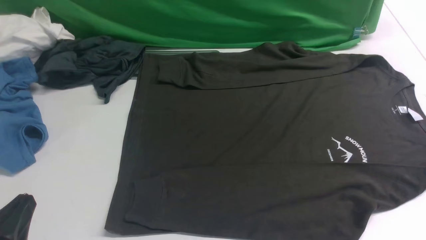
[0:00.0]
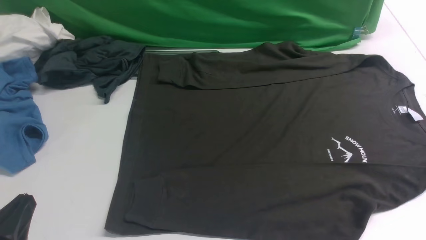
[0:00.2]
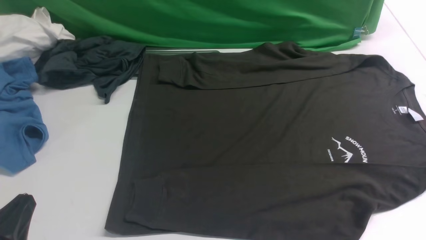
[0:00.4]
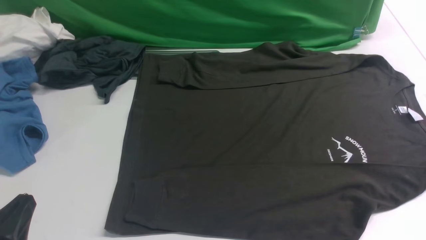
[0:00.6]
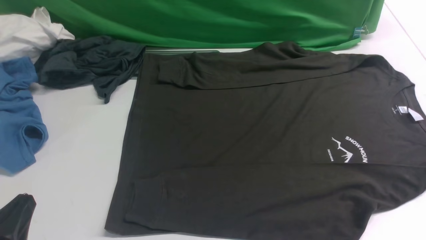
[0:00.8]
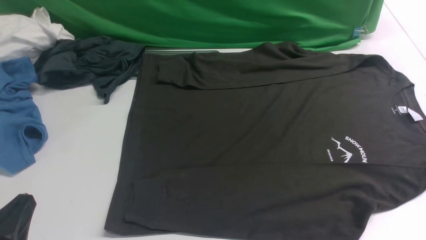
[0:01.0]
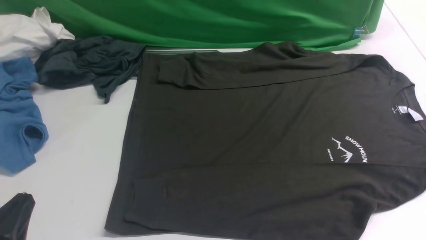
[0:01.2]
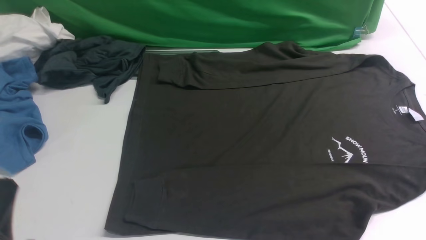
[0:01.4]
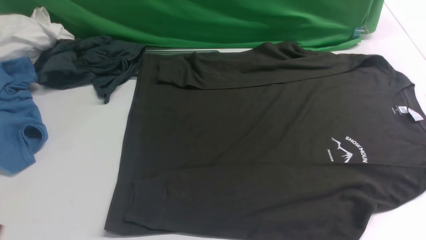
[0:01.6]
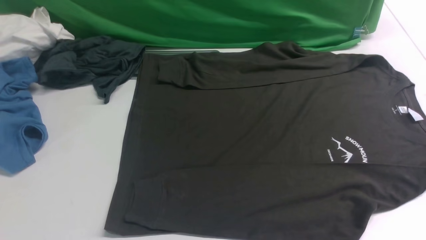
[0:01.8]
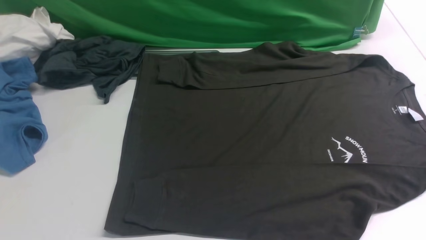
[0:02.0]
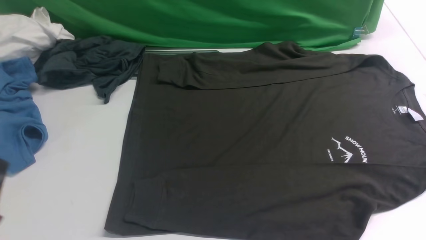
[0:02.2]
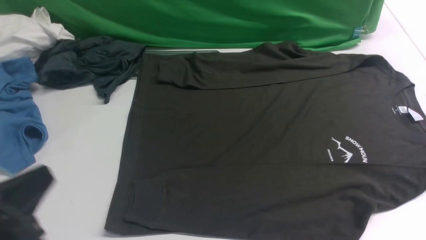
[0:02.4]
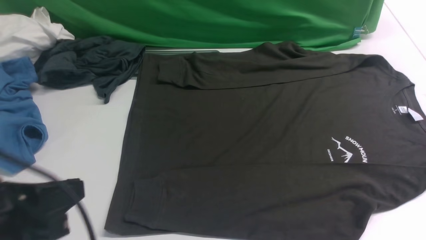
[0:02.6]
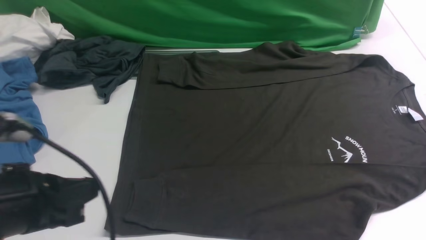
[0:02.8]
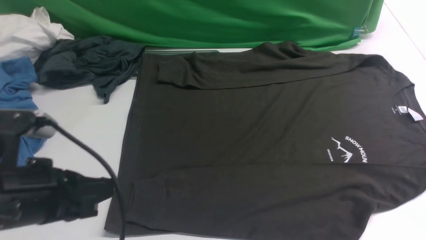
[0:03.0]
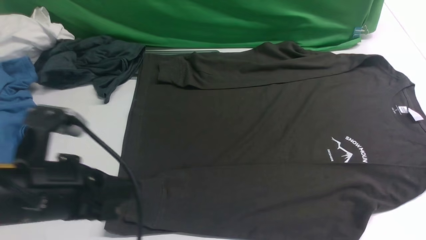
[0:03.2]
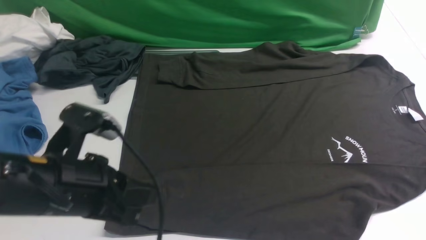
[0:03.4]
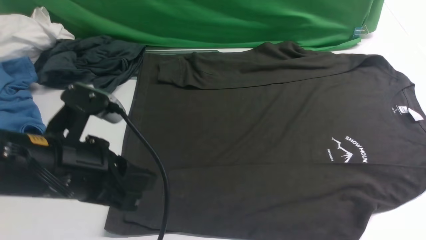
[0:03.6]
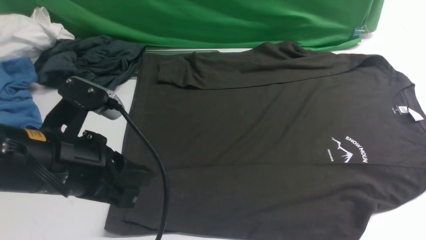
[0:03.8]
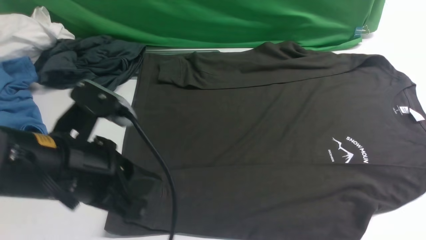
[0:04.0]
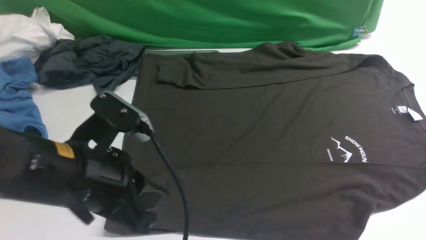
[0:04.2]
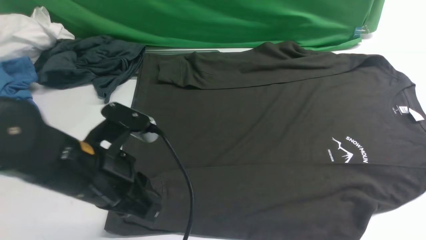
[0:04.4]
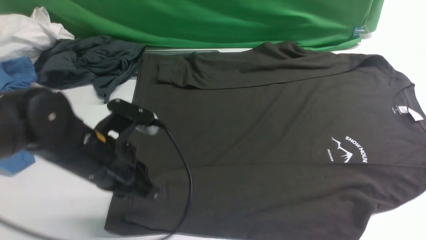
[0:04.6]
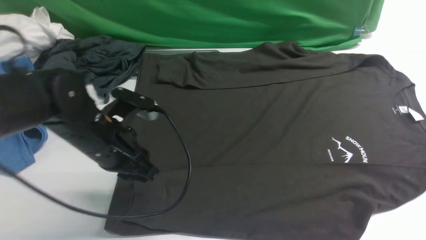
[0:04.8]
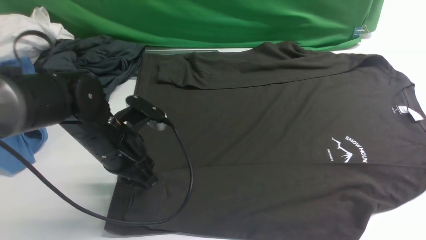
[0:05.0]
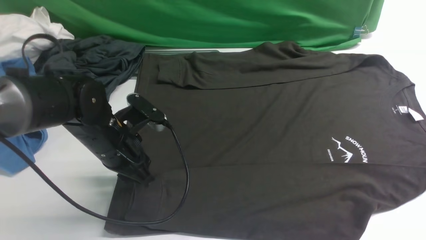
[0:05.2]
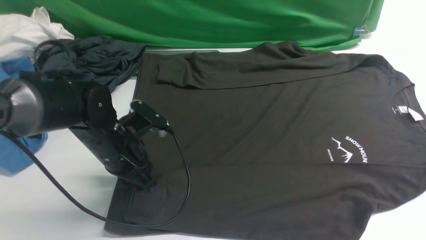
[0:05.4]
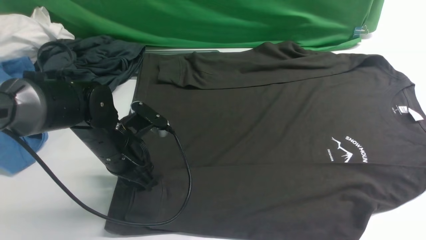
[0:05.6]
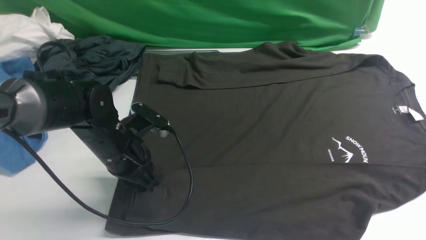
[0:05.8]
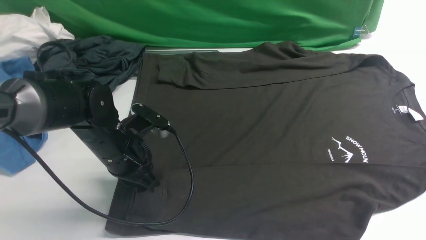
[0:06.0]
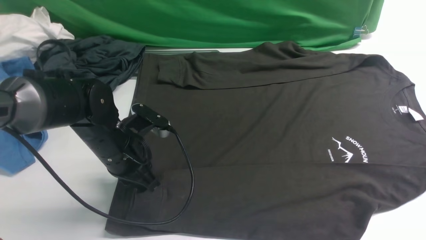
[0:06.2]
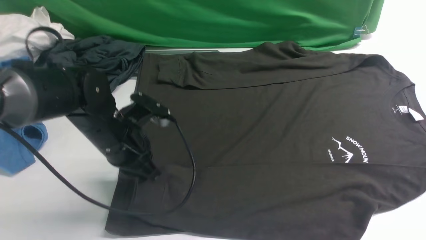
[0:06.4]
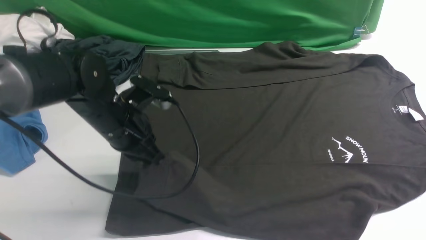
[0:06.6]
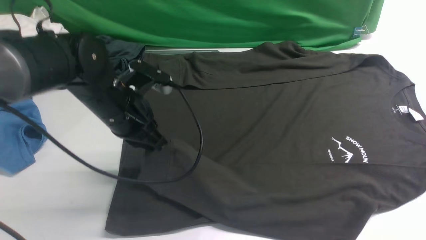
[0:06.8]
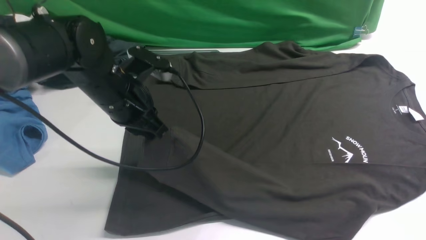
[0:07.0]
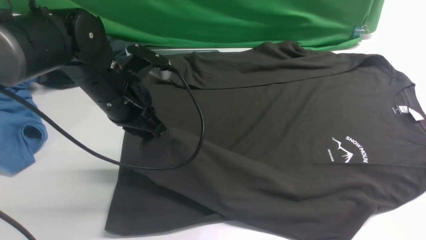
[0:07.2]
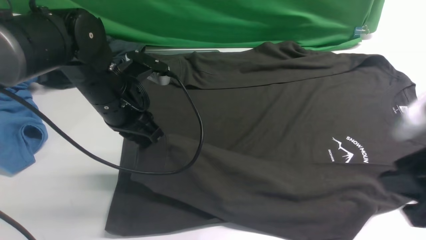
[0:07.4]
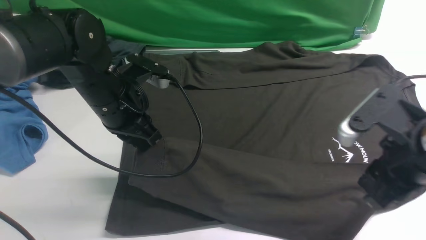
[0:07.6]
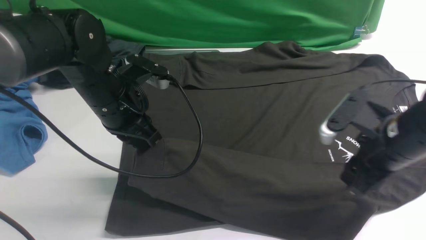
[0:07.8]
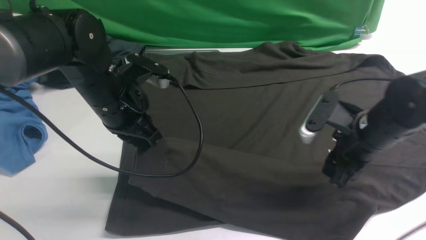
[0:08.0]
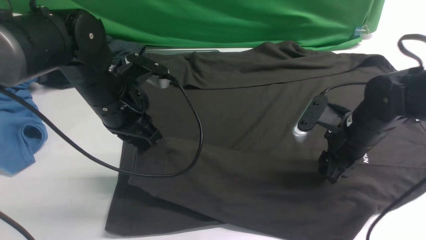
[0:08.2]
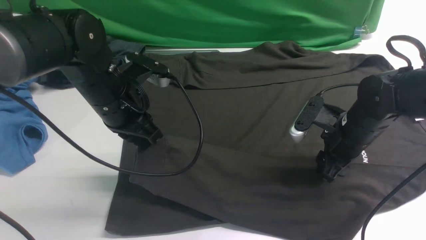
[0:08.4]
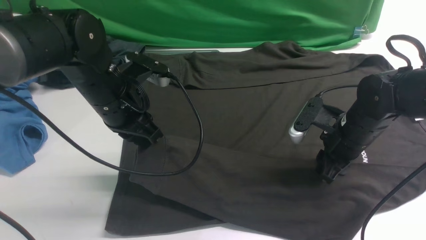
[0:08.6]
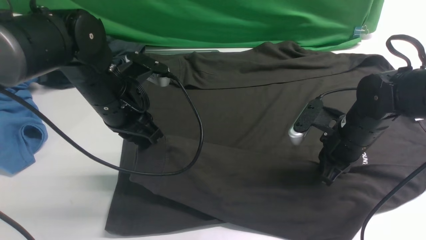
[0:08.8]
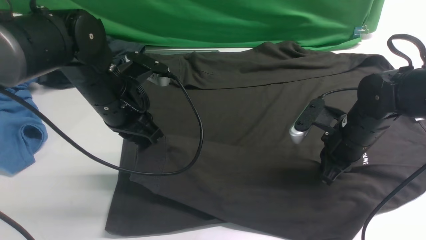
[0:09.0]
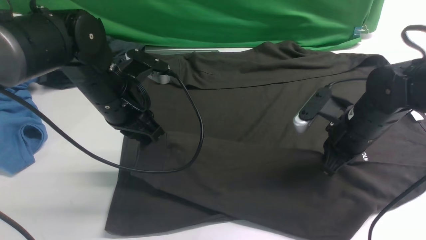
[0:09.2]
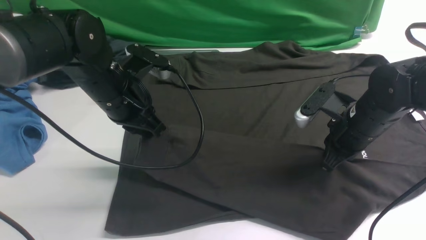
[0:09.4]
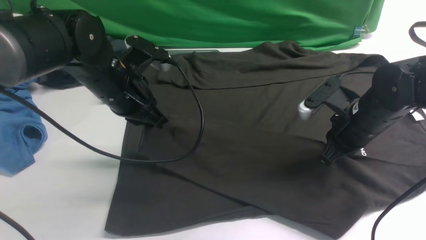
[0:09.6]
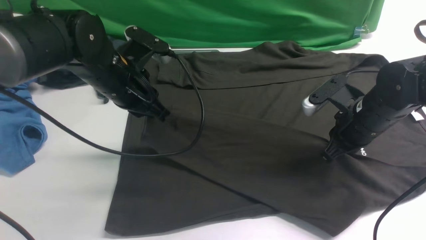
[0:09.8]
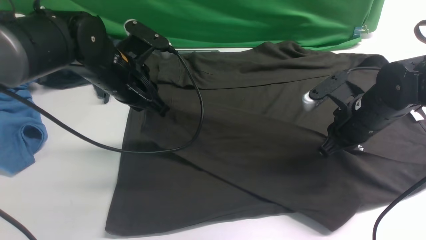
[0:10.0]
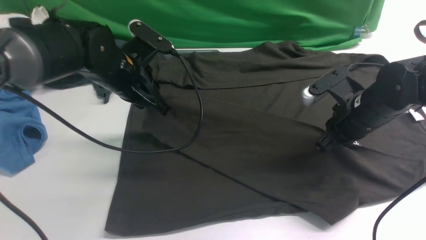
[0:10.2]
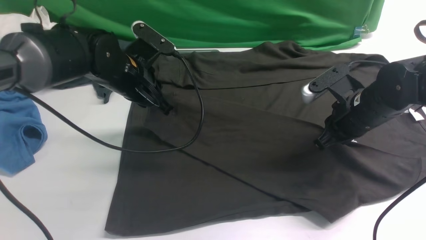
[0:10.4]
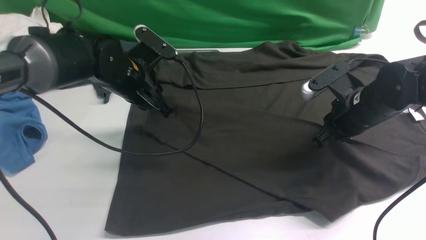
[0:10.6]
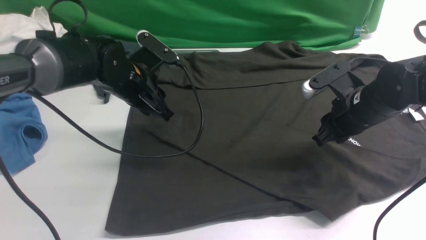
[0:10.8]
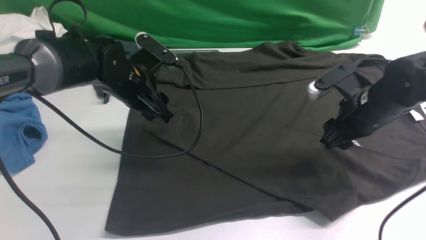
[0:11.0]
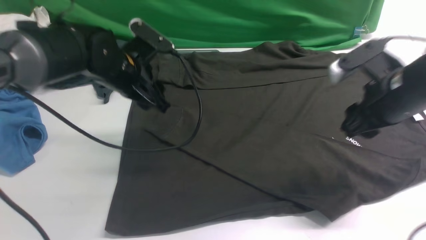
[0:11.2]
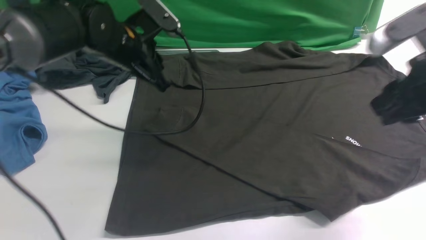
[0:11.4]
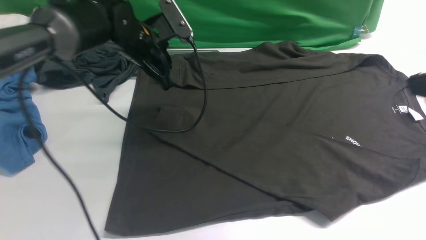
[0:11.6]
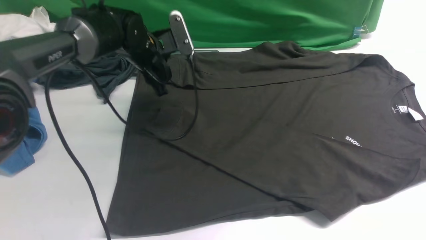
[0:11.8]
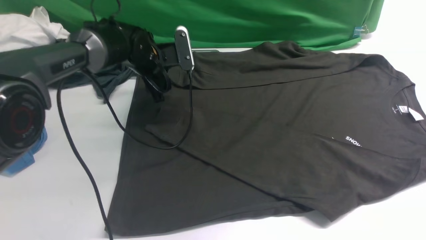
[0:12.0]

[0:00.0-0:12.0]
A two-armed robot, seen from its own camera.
Step, 0:00.0 to 0:06.4: use the left arm to clamp the cuff closest to it.
Step, 0:06.6 to 0:11.2: use the left arm to drag and place the cuff at the centered position on the left edge of the fabric.
0:01.6 to 0:03.0: The left gripper is displaced forward and upward by about 10 cm.
0:03.0 to 0:04.4: The right gripper moves upward, approximately 15 cm; the left gripper goes roughly 10 cm forward and to the right.
0:04.4 to 0:06.0: The left gripper heads forward and downward, covering roughly 15 cm, and opens, then closes once more.
0:06.0 to 0:07.6: The left gripper moves upward, about 10 cm; the right gripper shifts approximately 20 cm forward and downward.
0:07.6 to 0:09.0: The right gripper heads forward and downward, covering roughly 15 cm, and closes its fingers.
0:09.0 to 0:10.4: The left gripper shifts about 5 cm forward.
0:10.4 to 0:12.0: The left gripper is displaced forward by roughly 10 cm, and opens its fingers. The right gripper heads upward and backward, covering some 25 cm, and opens up.

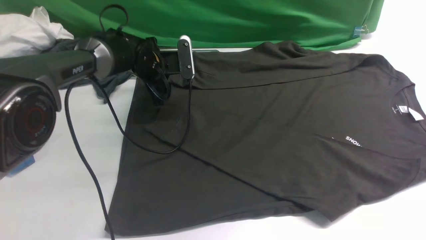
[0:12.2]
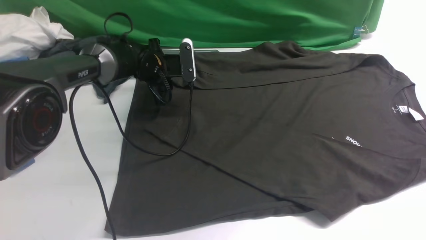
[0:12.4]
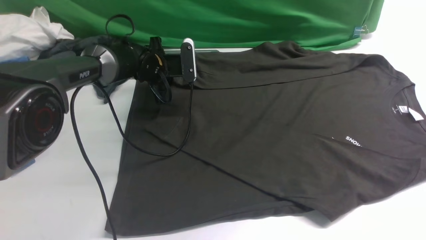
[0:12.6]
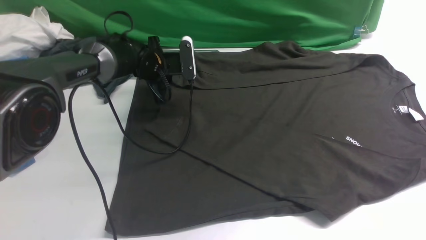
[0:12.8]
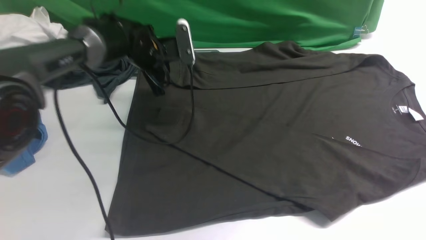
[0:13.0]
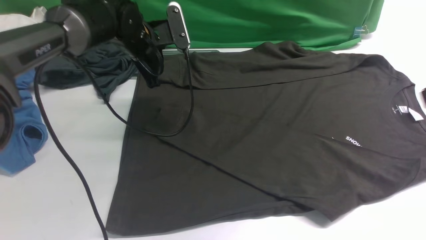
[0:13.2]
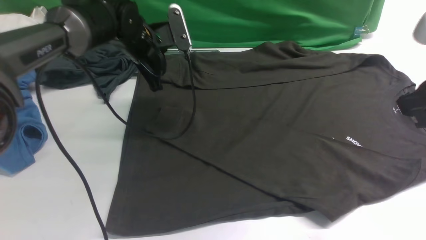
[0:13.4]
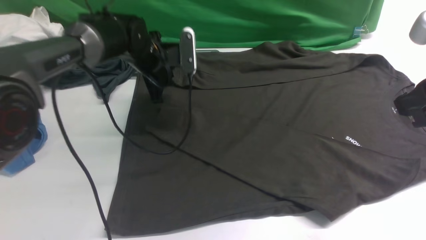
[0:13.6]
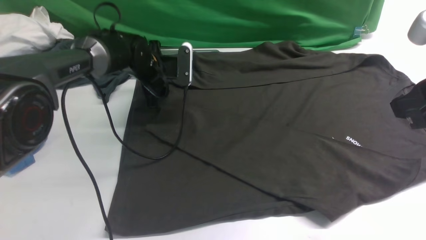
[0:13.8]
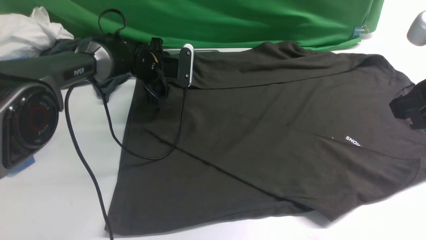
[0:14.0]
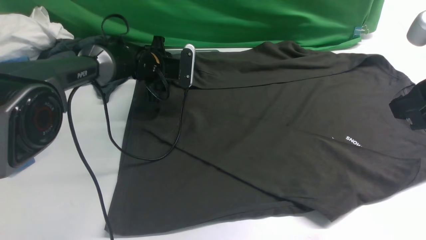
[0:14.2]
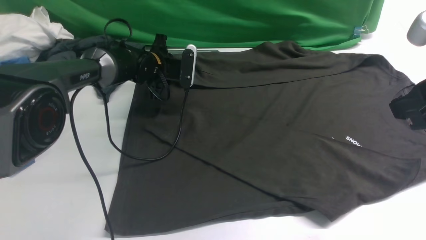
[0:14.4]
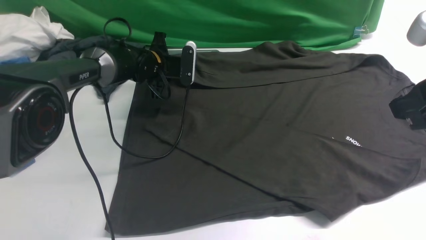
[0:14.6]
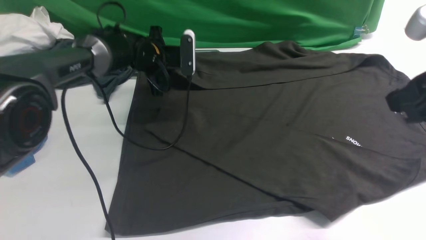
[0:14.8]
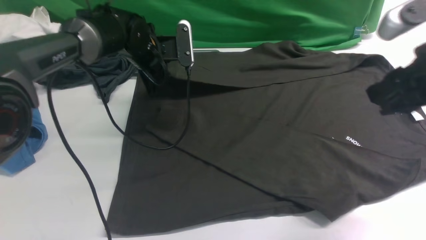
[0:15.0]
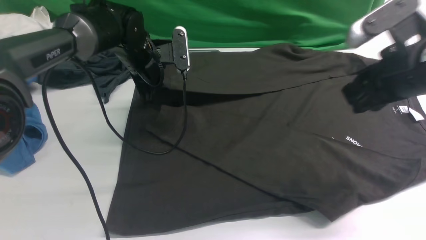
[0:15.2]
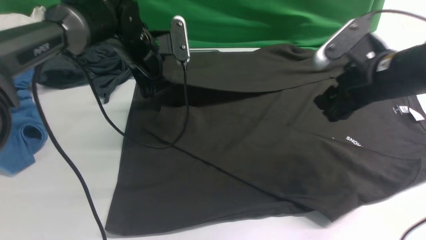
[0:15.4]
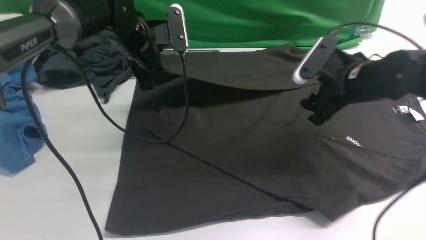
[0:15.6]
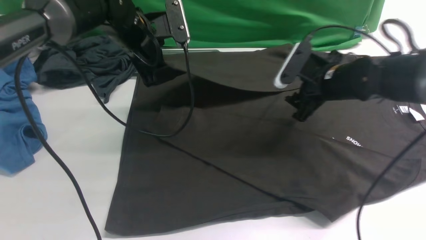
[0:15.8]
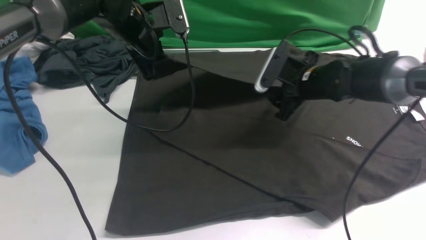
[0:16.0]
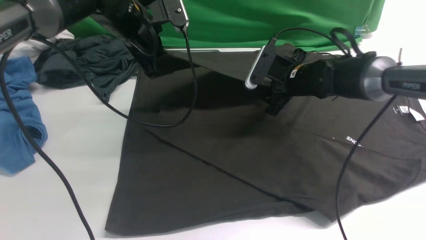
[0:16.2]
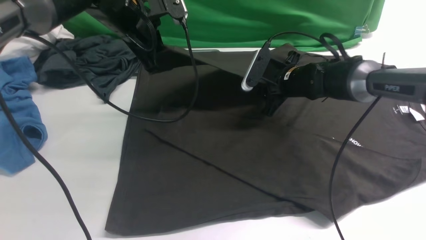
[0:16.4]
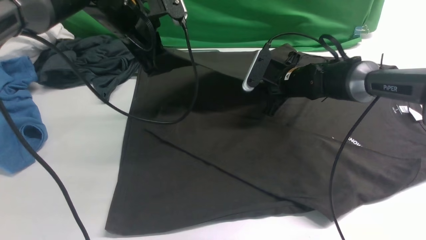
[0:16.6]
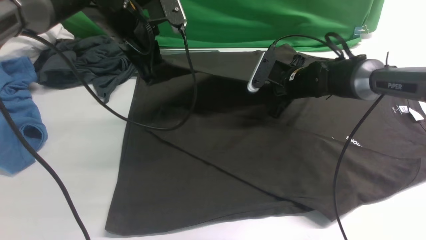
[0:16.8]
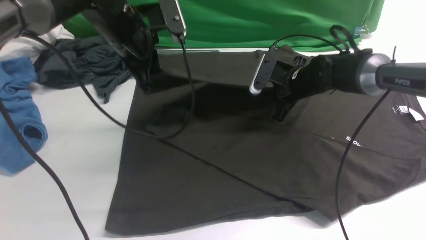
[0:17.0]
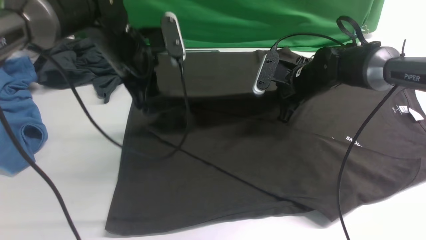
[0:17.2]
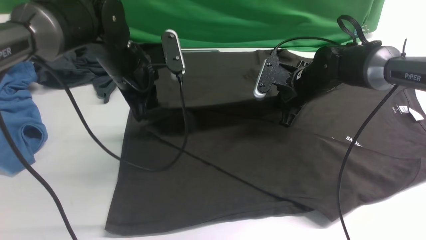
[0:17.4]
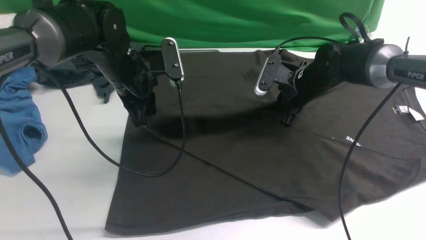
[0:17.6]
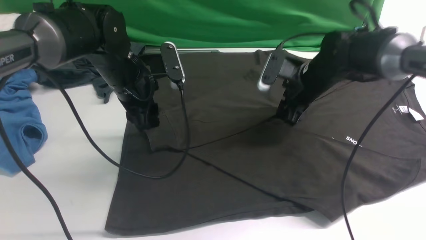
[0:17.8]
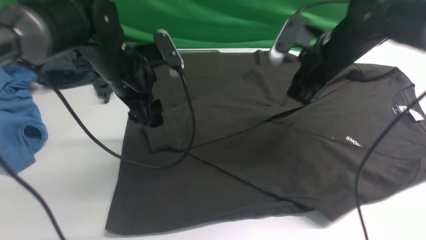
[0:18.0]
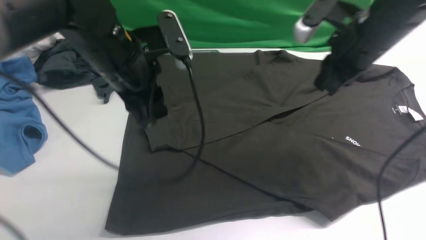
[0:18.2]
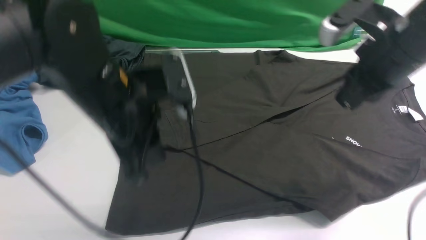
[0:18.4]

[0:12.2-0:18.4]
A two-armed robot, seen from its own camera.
Step, 0:12.2 to 0:14.6: use the left arm to clamp the cuff farthest from it.
Step, 0:14.8 to 0:17.8: use the left arm to drag and drop the cuff onto the cuff closest to the left arm.
0:12.2 to 0:13.8: The left gripper closes and opens again. Meanwhile the right gripper ends up some 5 cm from where it was.
0:13.8 to 0:15.4: The left gripper travels upward by approximately 5 cm, and closes its fingers, while the right gripper goes about 15 cm forward and downward, and opens.
0:15.4 to 0:16.8: The left gripper heads upward, covering roughly 5 cm. The right gripper is displaced forward, downward and to the left by some 20 cm, and closes its fingers.
0:16.8 to 0:18.4: The right gripper shifts approximately 25 cm upward and backward, and opens, then closes again, while the left gripper shifts roughly 15 cm backward, and opens, then closes again.
